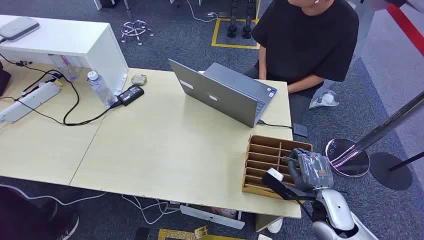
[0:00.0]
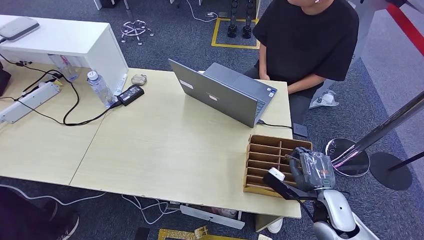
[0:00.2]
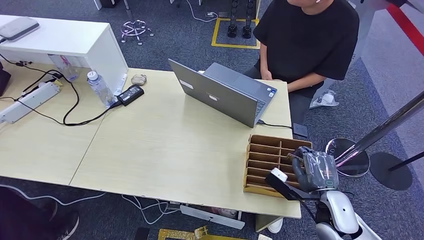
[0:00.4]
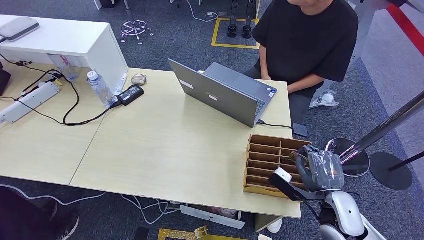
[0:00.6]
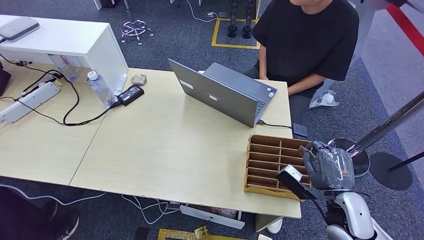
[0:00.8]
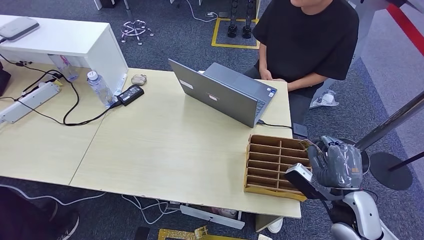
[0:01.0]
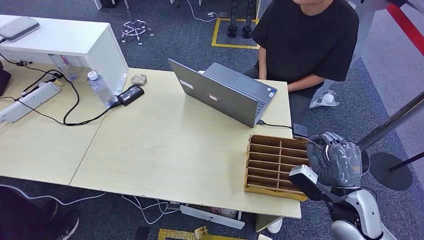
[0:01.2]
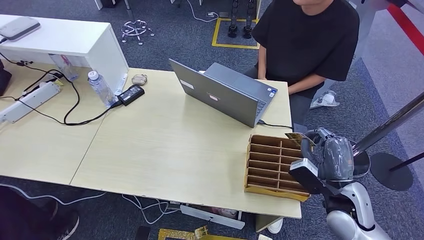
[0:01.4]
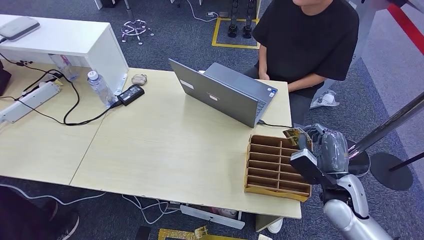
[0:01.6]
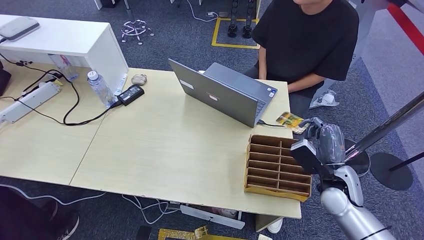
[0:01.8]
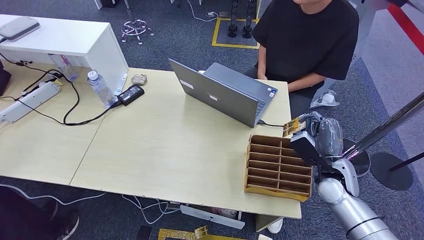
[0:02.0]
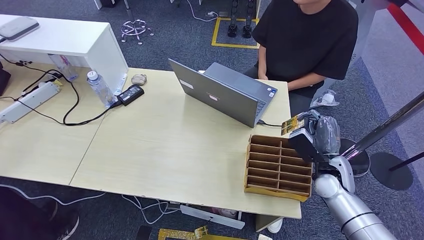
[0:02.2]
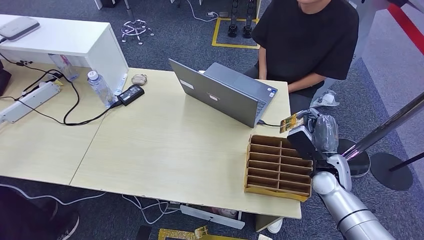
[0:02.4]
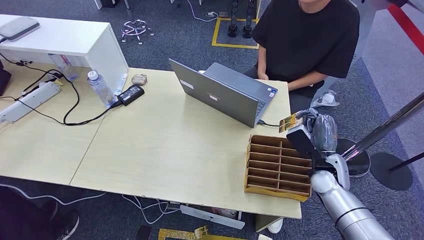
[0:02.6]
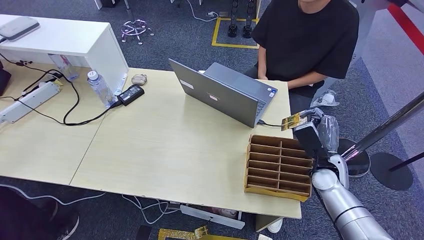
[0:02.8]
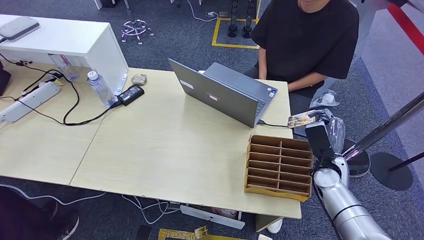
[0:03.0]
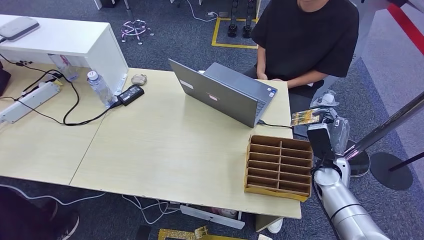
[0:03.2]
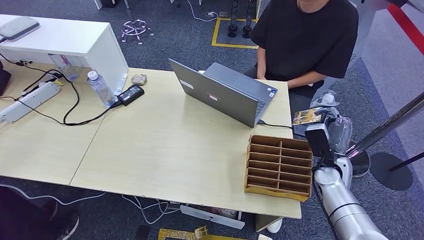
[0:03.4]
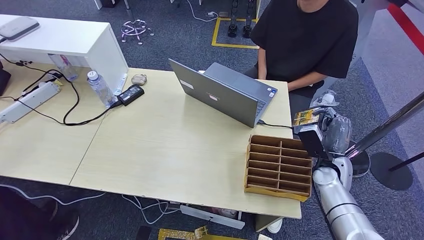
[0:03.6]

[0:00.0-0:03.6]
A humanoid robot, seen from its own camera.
Step, 0:00.0 to 0:01.8: Pick up the key card from the card box.
Step, 0:02.0 to 0:03.6: Hand the key card to the target.
0:01.8 to 0:03.6: The right hand is displaced forward by approximately 5 cm.

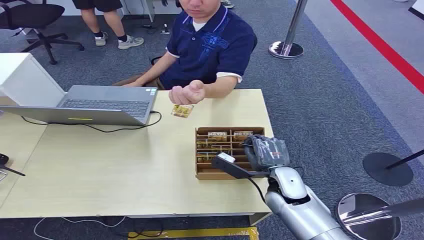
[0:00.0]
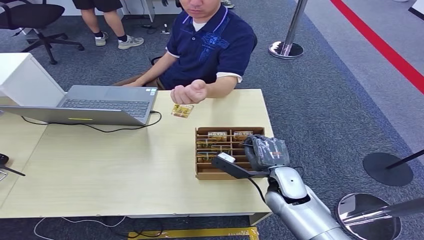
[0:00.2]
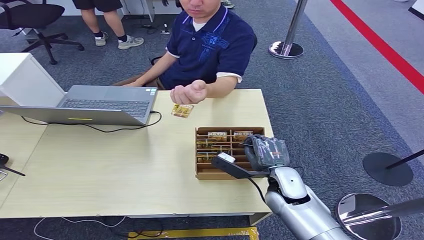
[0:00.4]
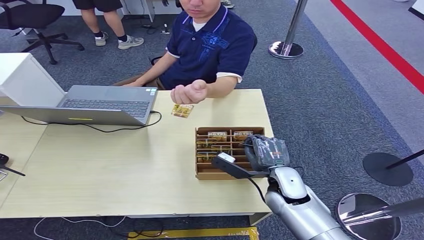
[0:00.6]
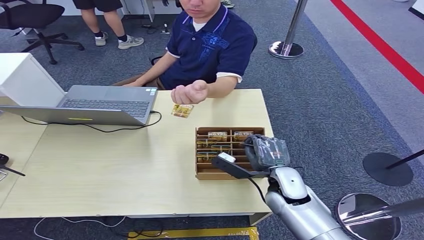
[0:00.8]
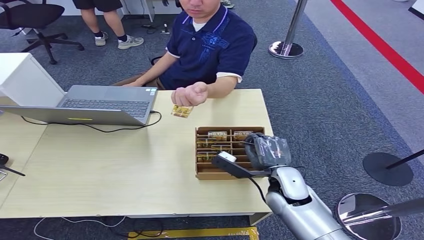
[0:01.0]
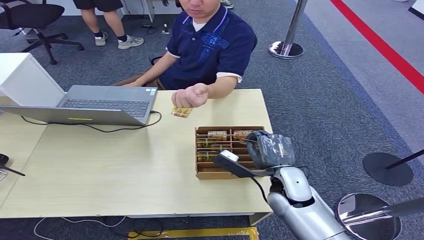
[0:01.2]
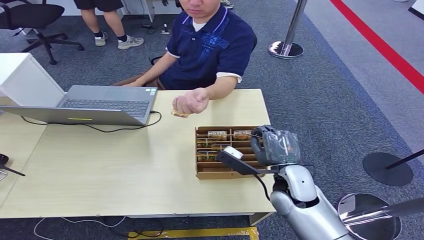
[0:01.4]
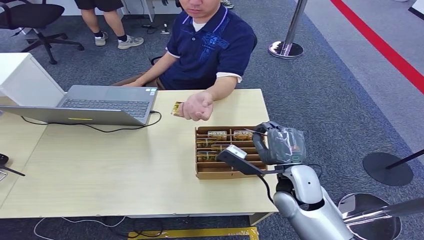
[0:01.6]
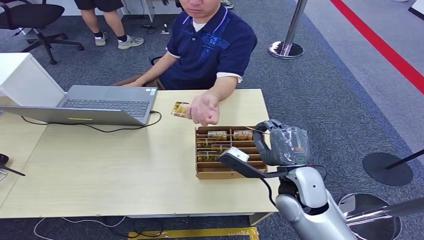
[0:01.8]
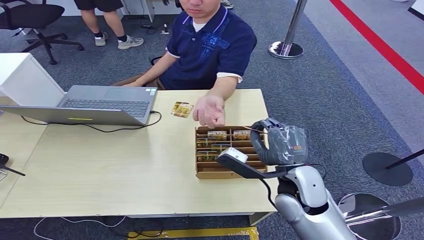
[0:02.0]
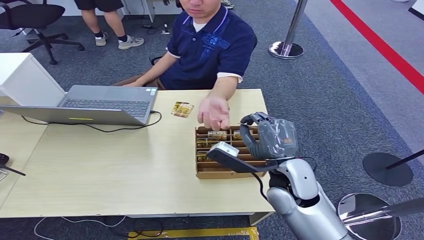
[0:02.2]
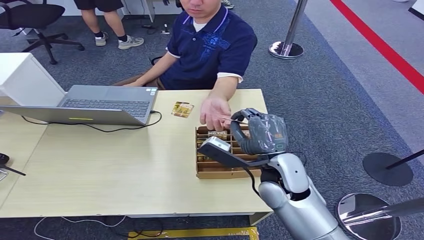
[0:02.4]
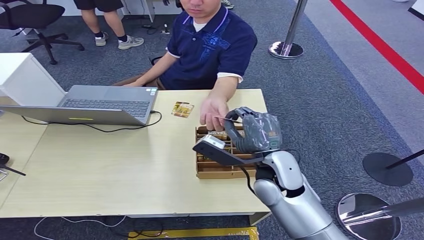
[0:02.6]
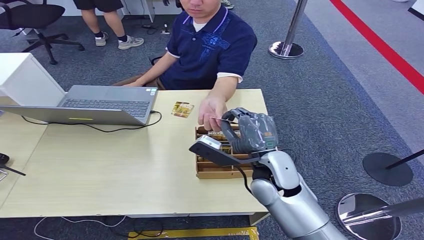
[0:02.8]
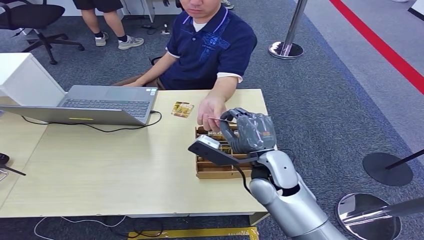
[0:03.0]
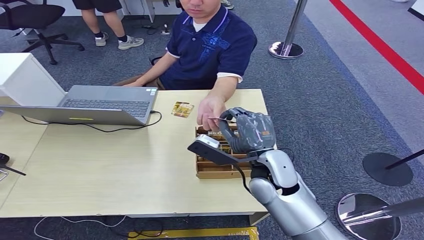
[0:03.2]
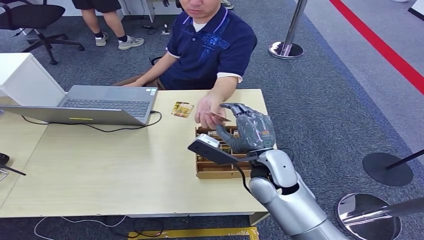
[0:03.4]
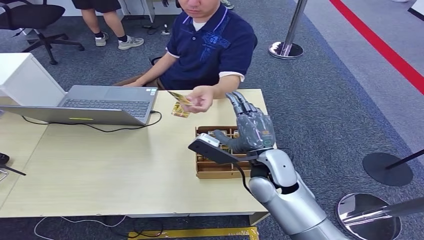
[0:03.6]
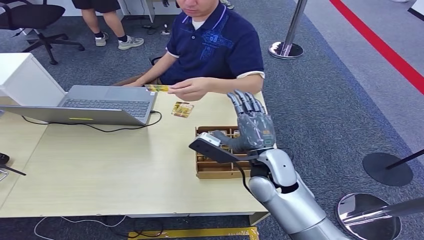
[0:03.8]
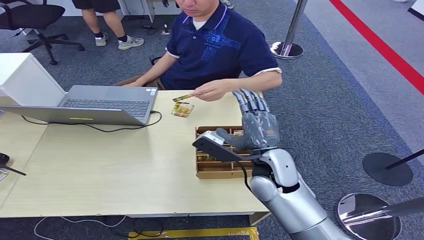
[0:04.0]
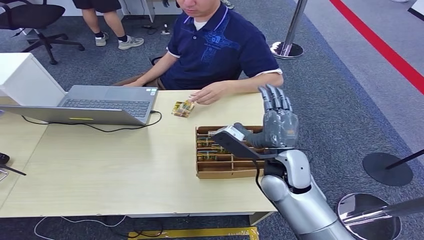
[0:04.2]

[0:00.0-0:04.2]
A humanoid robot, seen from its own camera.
Step, 0:00.0 to 0:01.6: Pick up the key card from the card box.
Step, 0:01.8 to 0:04.2: Hand the key card to the target.
0:01.4 to 0:02.8: The right hand travels upward by approximately 5 cm.
0:02.8 to 0:04.2: The hands stay close to where they were, moving slightly.

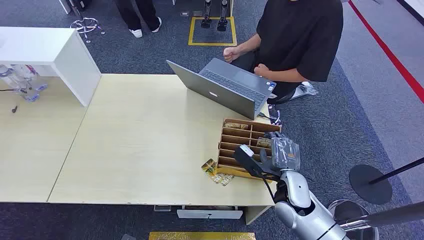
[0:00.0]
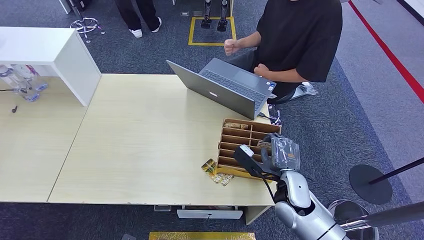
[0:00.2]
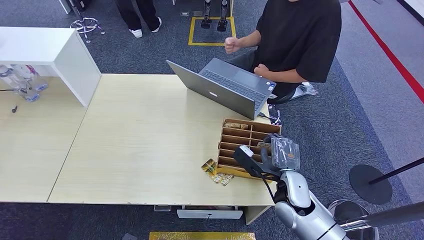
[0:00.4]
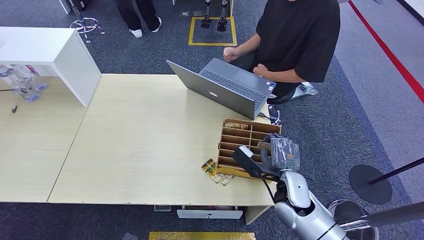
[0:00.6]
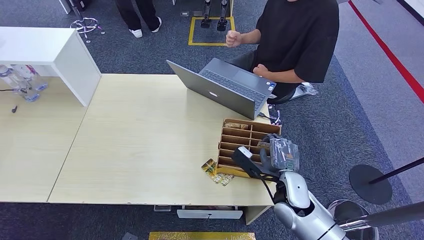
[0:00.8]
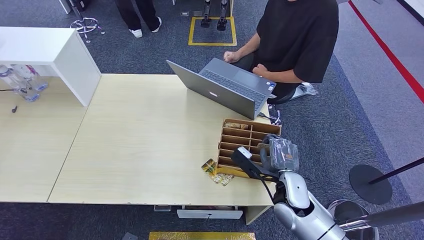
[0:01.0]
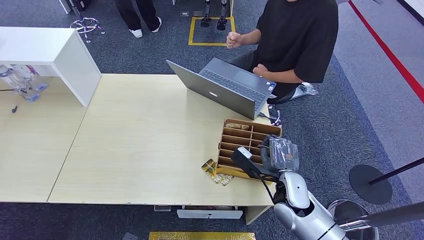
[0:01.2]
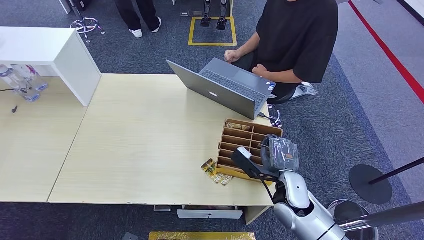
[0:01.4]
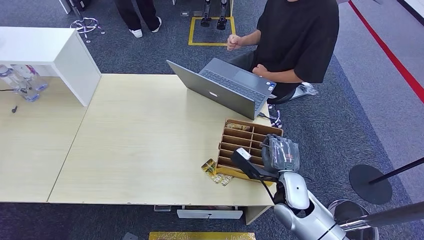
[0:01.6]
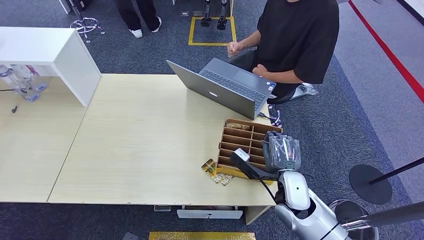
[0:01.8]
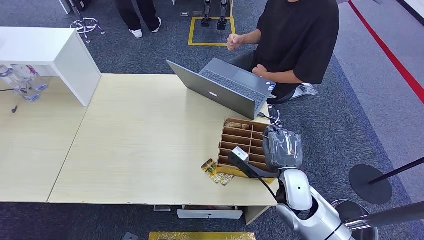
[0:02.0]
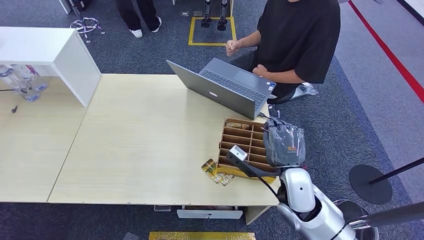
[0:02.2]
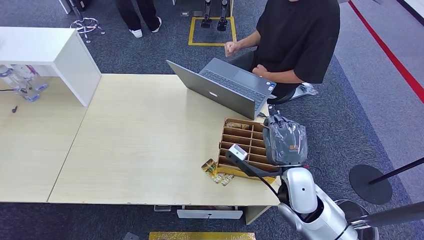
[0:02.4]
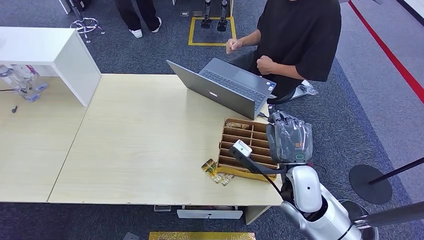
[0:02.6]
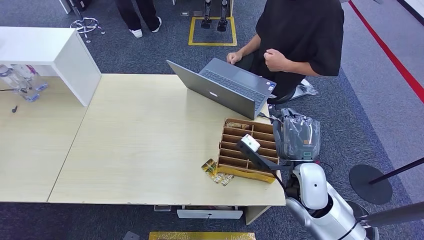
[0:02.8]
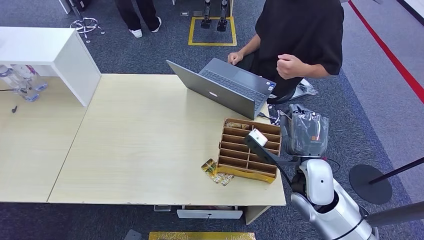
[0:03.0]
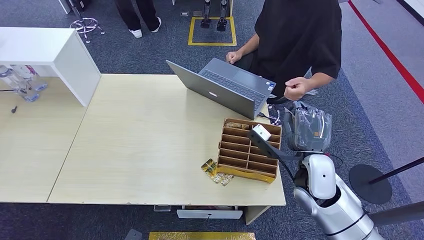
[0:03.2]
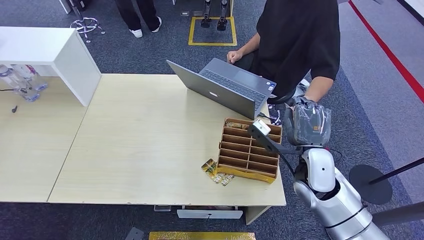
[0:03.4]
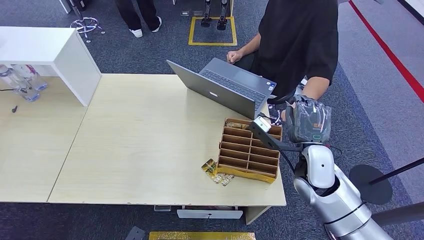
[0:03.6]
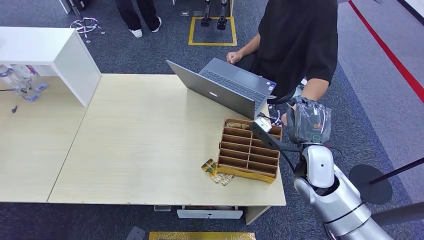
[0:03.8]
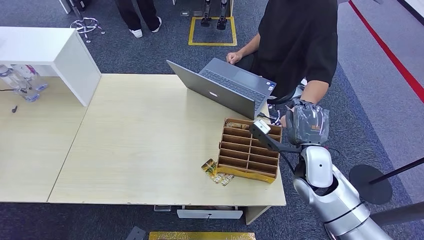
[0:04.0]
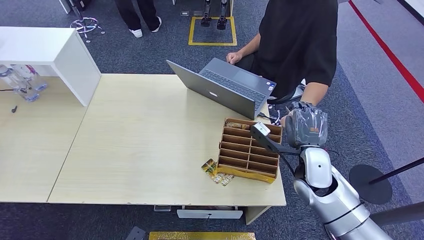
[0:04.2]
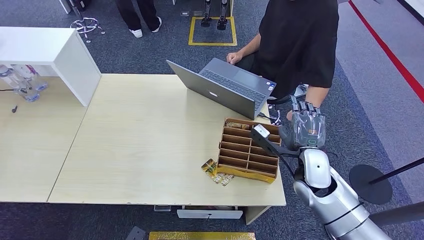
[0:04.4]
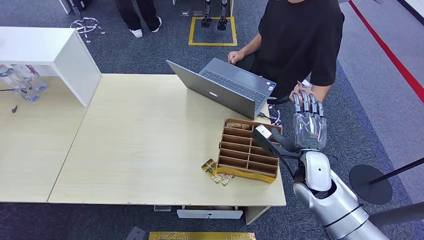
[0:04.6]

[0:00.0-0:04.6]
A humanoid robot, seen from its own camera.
Step, 0:00.0 to 0:02.6: Pick up the key card from the card box.
Step, 0:02.8 to 0:04.6: Hand the key card to the target.
0:01.6 to 0:03.0: The right hand is displaced upward by about 10 cm.
0:03.0 to 0:04.6: The right hand ends up approximately 5 cm from where it was.
